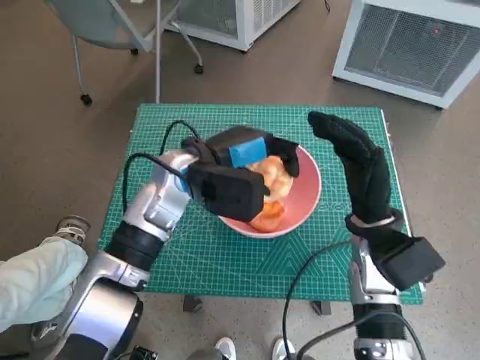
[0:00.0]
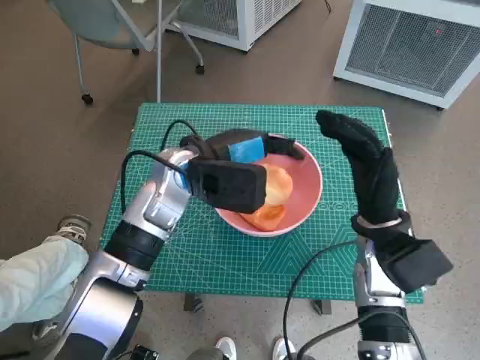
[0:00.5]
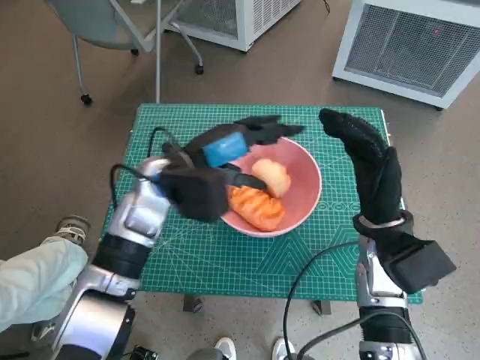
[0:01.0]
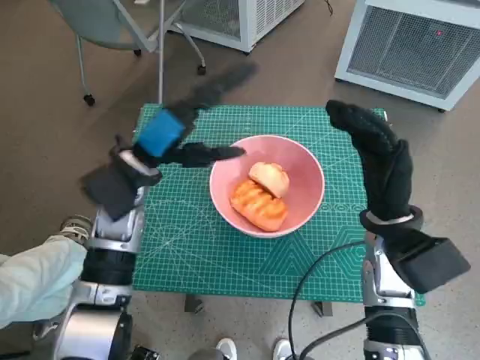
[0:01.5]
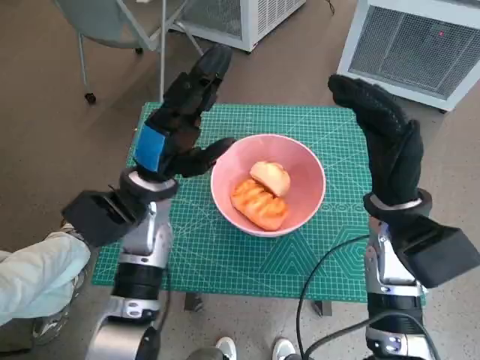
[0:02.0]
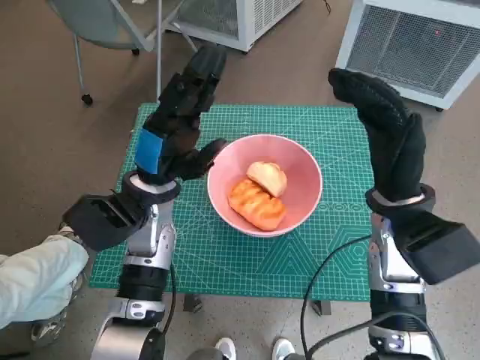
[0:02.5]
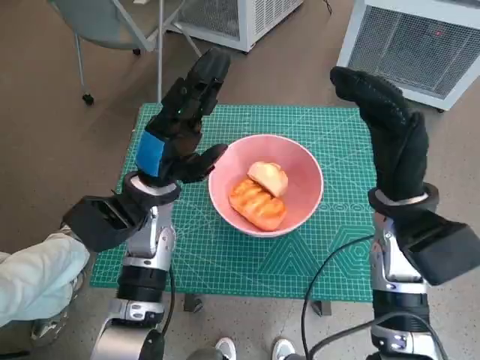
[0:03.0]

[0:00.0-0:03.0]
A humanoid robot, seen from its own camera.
Task of the whole recording: Push the bowl into the center of the table and put the bread into the bowl.
0:00.0 to 0:01.5: The left hand shifts roughly 5 cm to the left.
